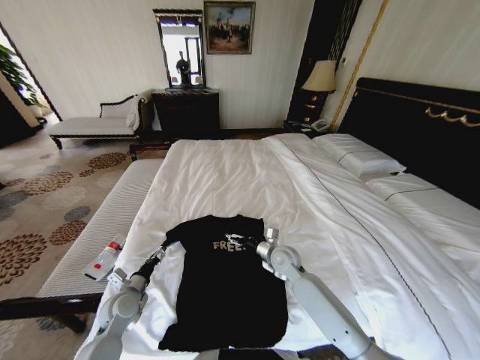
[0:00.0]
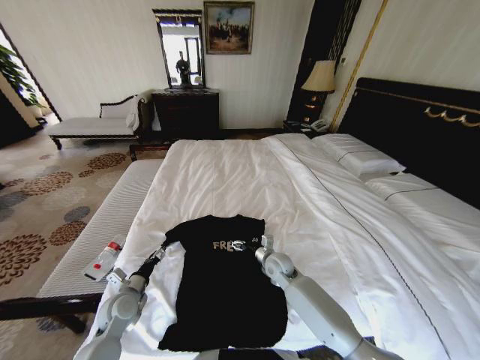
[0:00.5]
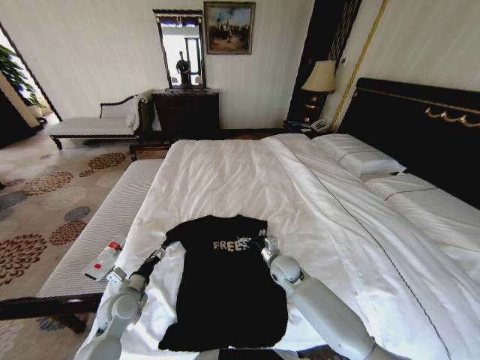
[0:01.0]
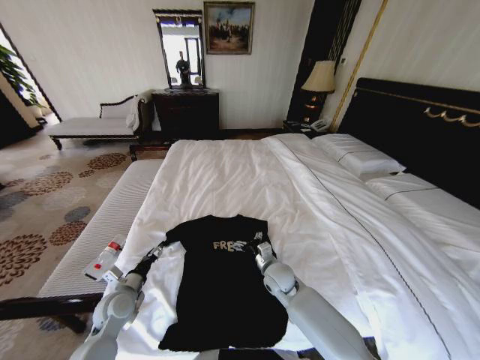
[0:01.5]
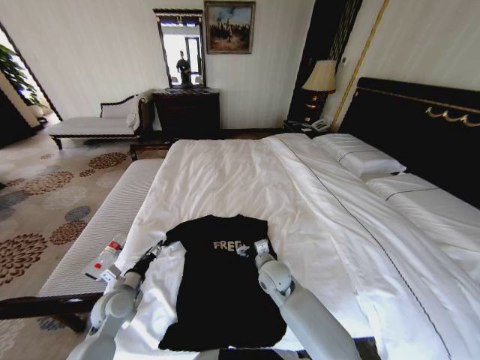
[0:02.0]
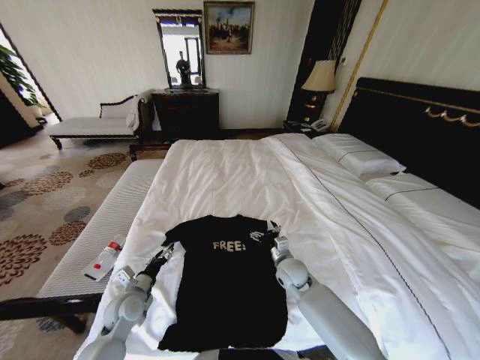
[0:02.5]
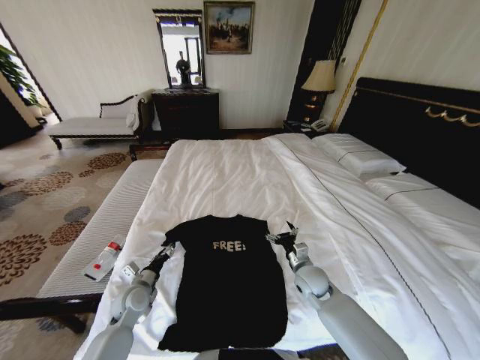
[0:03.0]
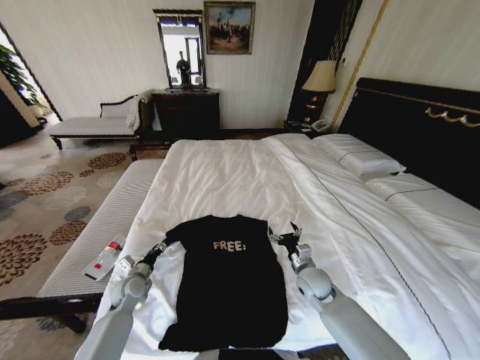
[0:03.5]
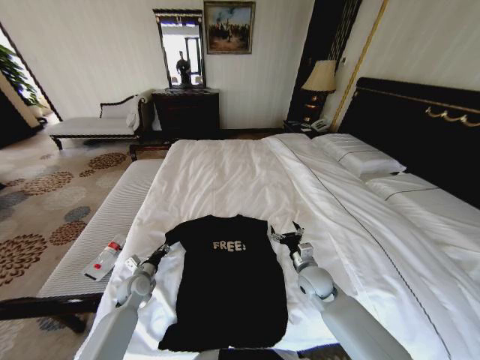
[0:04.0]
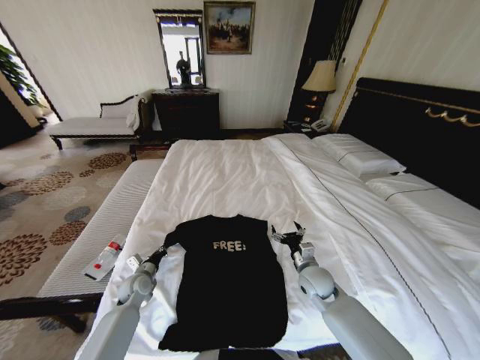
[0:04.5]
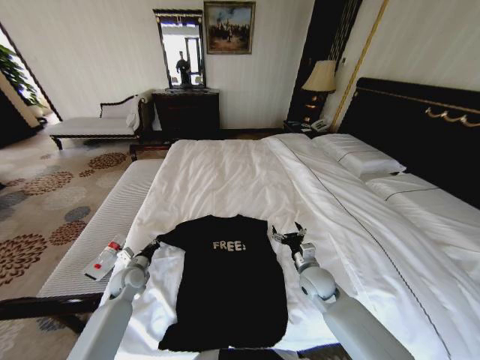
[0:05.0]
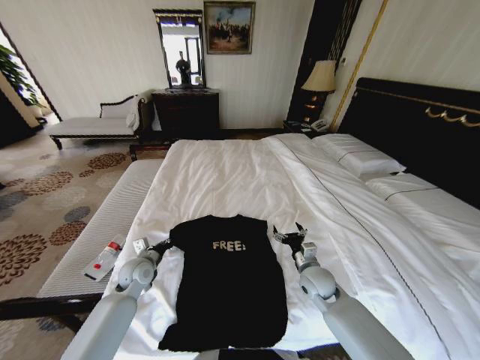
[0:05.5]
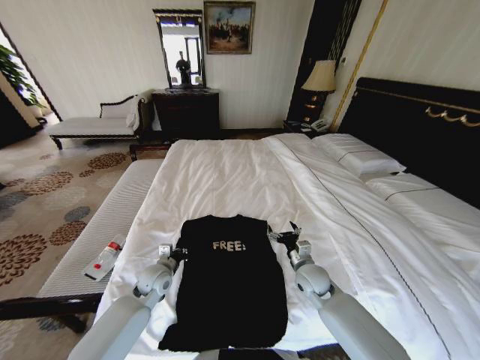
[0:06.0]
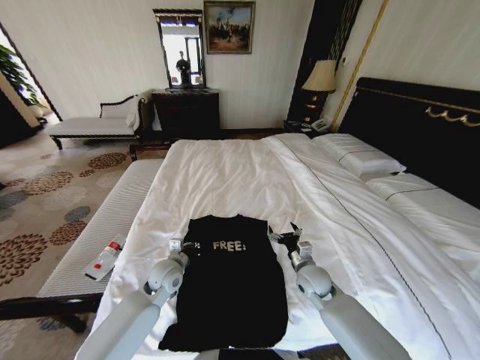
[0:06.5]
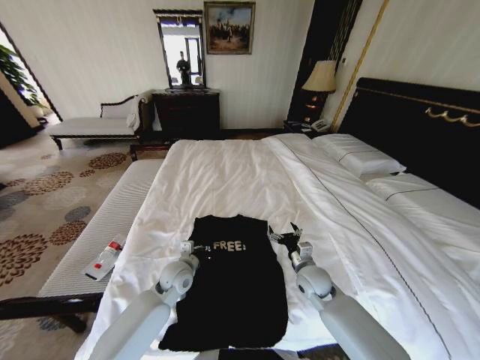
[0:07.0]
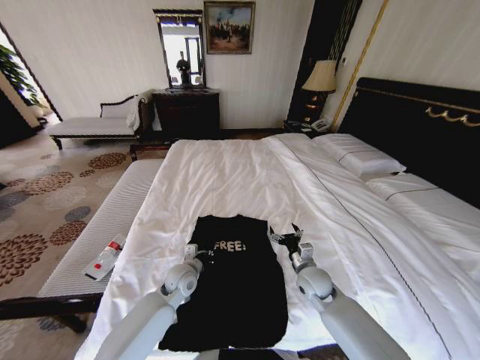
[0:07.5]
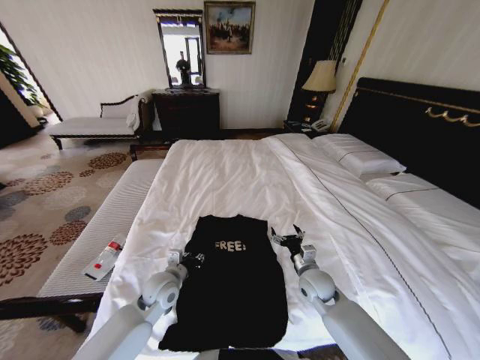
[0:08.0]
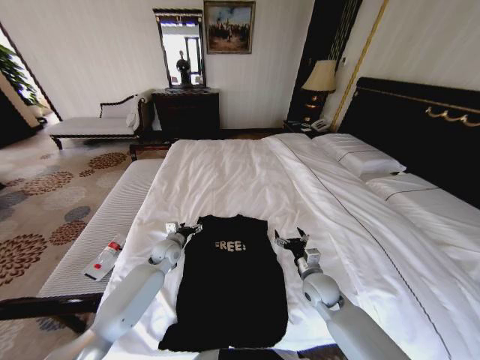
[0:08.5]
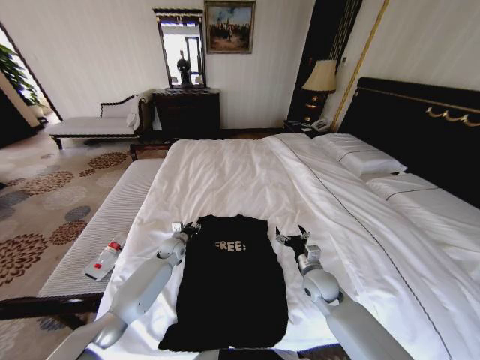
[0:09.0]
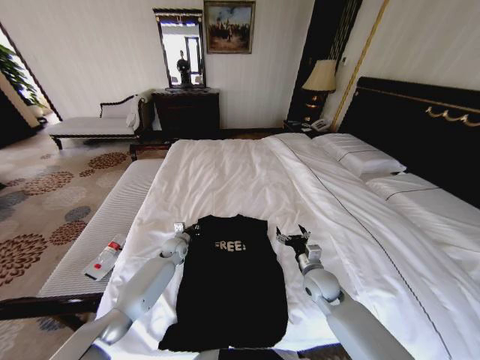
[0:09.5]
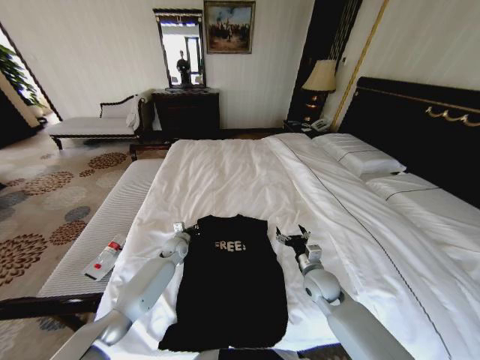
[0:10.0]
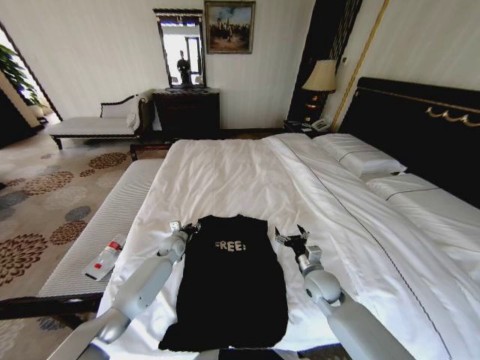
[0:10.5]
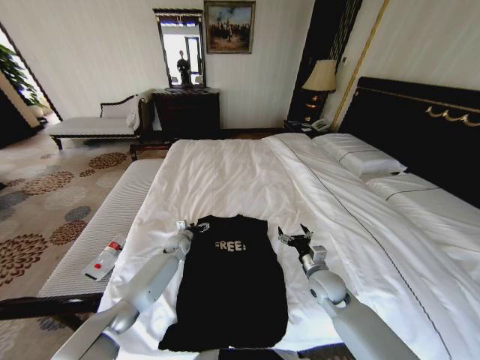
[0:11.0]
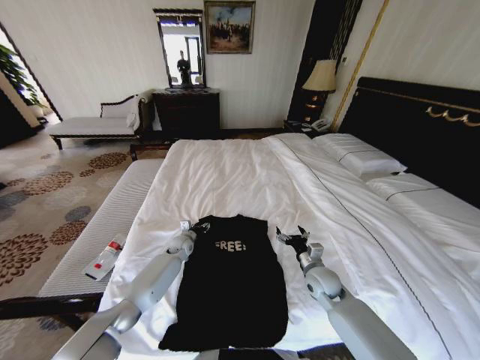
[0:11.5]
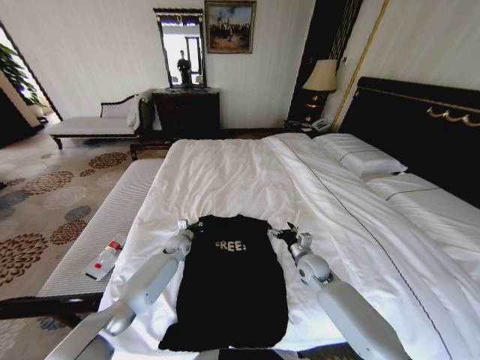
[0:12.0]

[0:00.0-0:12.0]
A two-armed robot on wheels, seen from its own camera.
Task of the whole recording: Fold the clothes on the bed.
0:00.0 to 0:02.0: The right gripper ends up approximately 5 cm from where it was.
0:02.0 to 0:04.0: The left gripper is displaced forward and downward by about 10 cm; the right gripper travels to the right by about 15 cm.
0:04.0 to 0:06.0: The left gripper travels to the right and upward by approximately 10 cm, and closes.
0:06.0 to 0:08.0: The left gripper shifts by some 5 cm.
0:08.0 to 0:10.0: The left gripper goes about 20 cm forward and downward, and opens, then closes again.
0:10.0 to 0:12.0: The right gripper moves forward, about 5 cm. The left gripper opens, then closes once more.

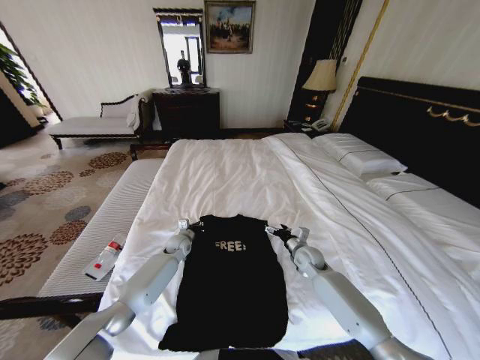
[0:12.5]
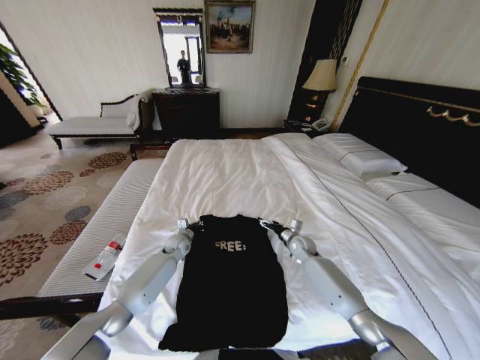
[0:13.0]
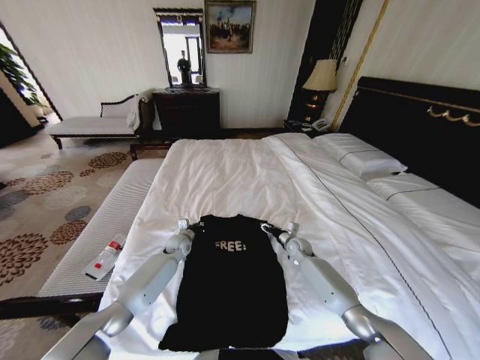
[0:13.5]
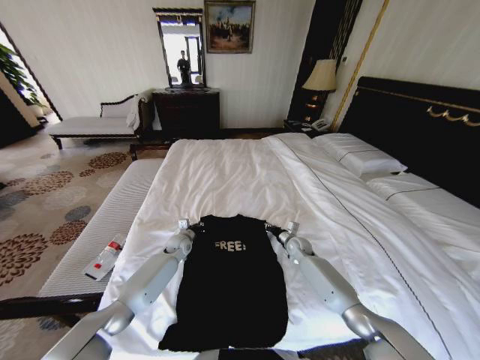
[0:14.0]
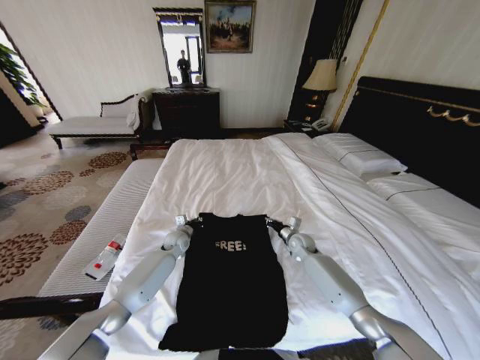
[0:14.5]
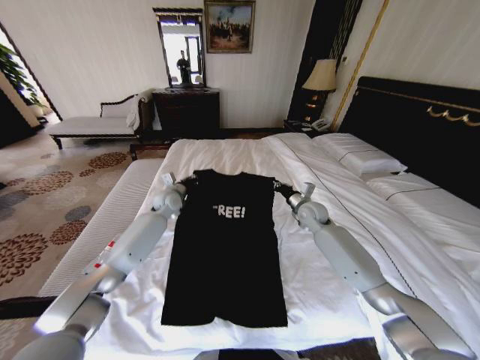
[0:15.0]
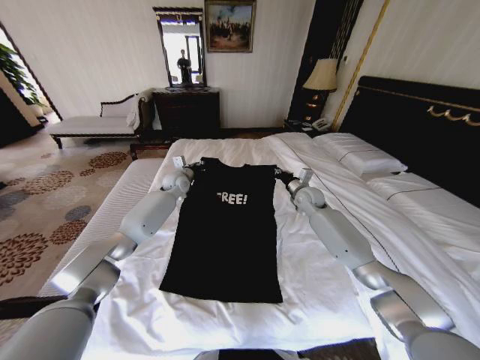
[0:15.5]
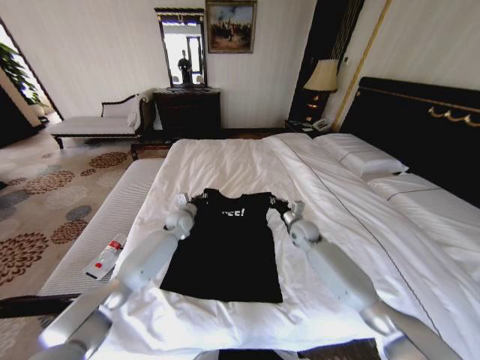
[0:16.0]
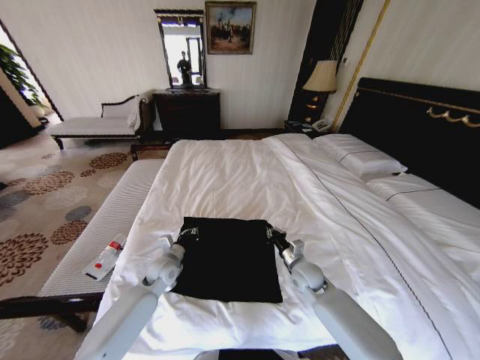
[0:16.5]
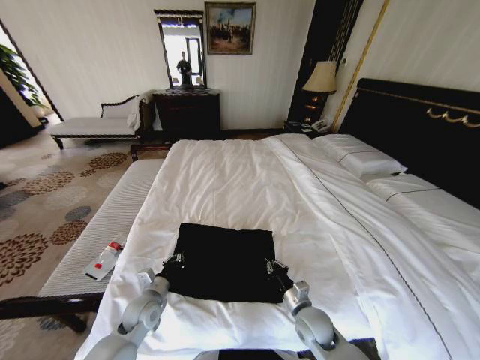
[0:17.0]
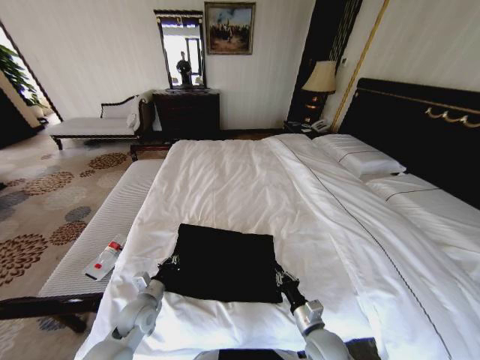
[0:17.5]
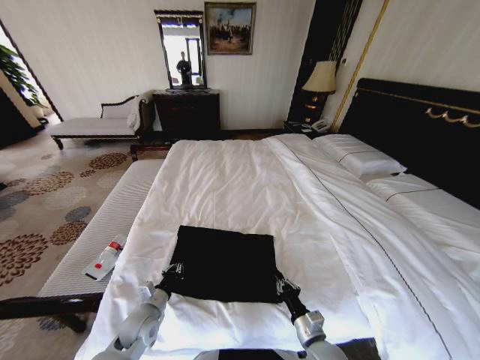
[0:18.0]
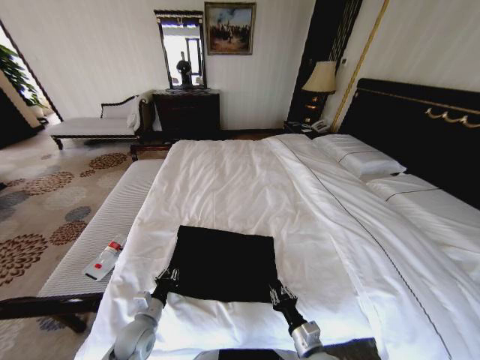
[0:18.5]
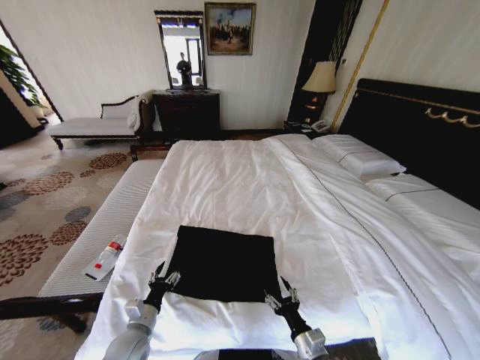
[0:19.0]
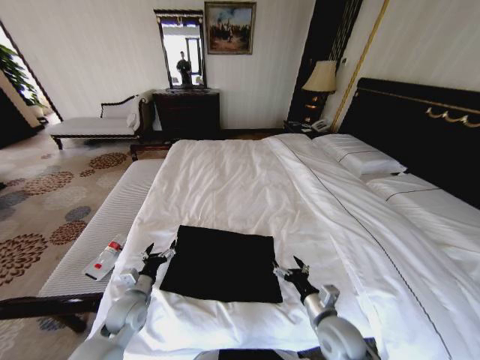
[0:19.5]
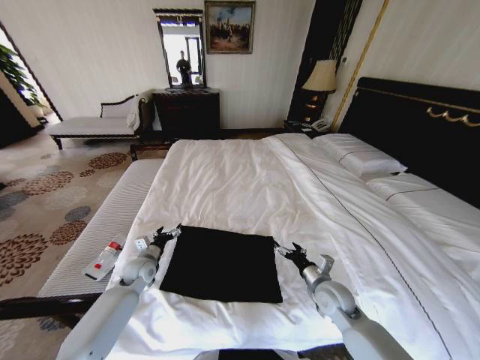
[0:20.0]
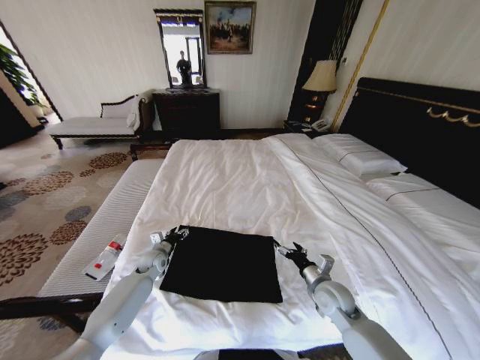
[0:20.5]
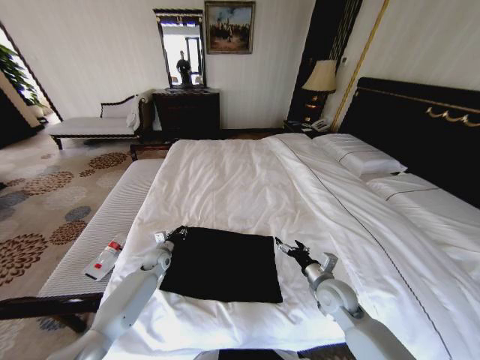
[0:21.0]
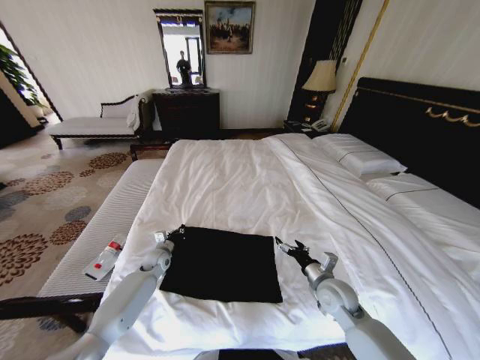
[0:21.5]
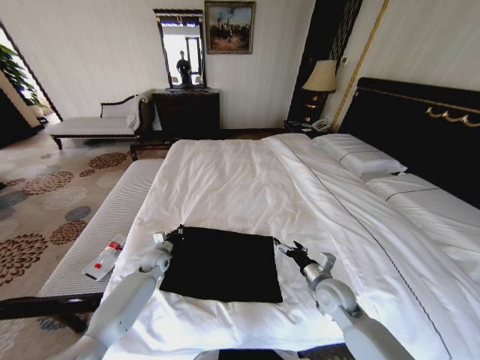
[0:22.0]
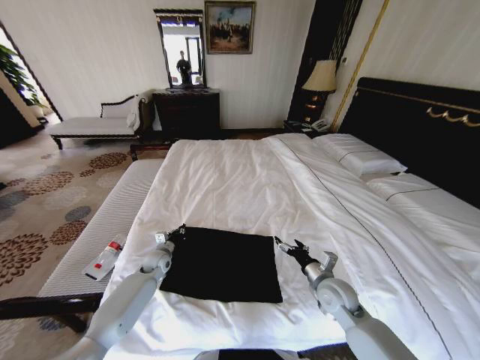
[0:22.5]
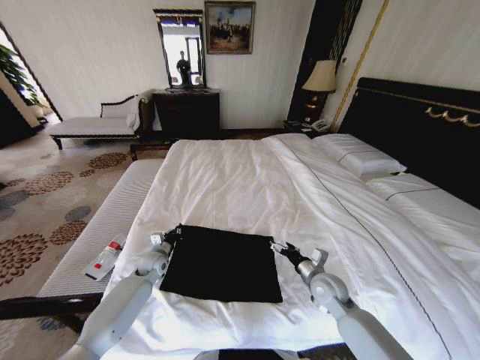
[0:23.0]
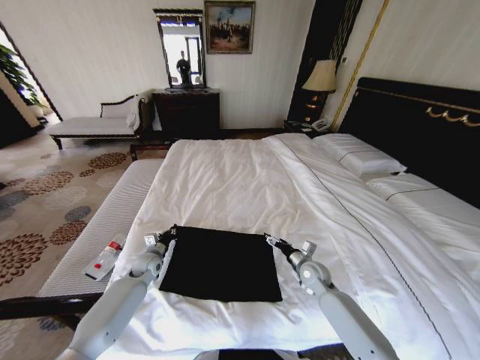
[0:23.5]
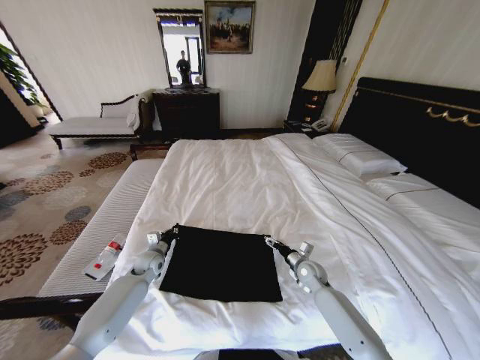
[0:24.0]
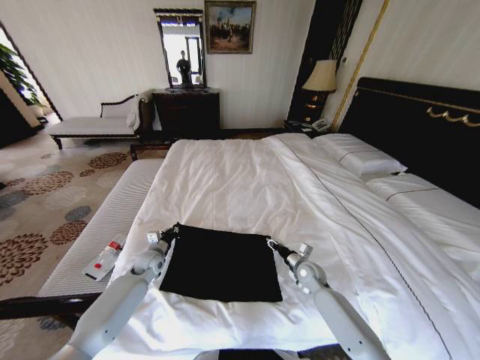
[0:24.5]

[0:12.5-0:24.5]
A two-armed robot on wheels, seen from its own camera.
Task of the whole recording: Fold the clothes on the bed.
0:12.5 to 0:14.5: The right gripper heads forward, covering roughly 5 cm, and closes its fingers.
0:14.5 to 0:16.5: The grippers both shift backward by roughly 10 cm.
0:16.5 to 0:18.5: Both grippers move backward, some 20 cm.
0:18.5 to 0:20.5: The right gripper heads forward, upward and to the right, covering about 20 cm, and opens its fingers, while the left gripper is displaced forward by roughly 20 cm, and opens its fingers.
0:20.5 to 0:22.5: The left gripper closes its fingers.
0:22.5 to 0:24.5: The right gripper shifts about 15 cm forward and downward, and closes its fingers.

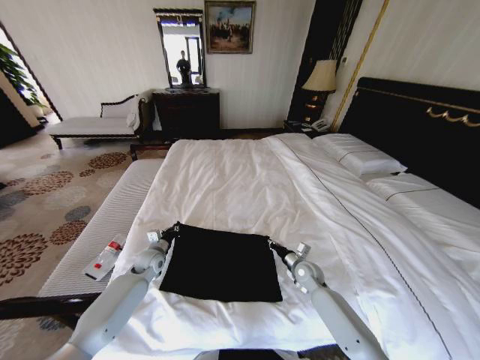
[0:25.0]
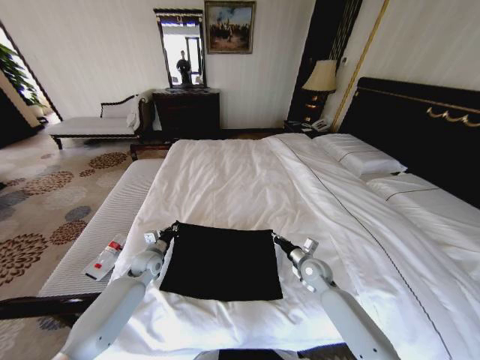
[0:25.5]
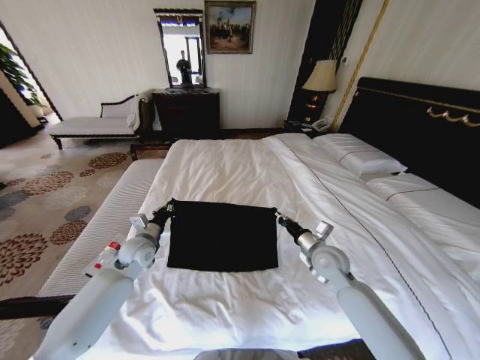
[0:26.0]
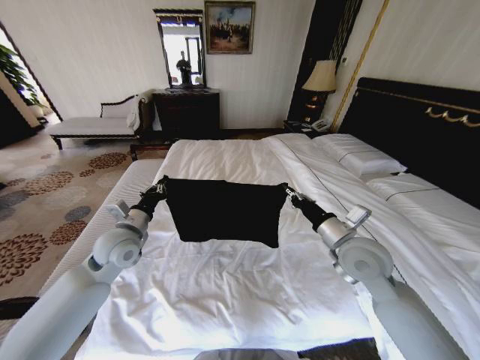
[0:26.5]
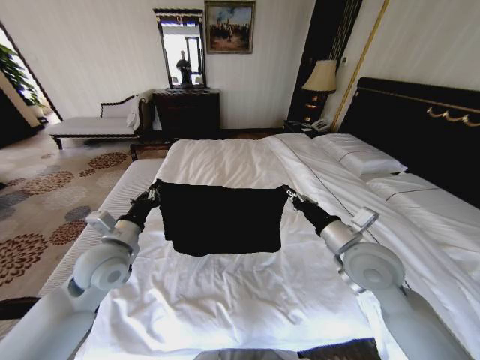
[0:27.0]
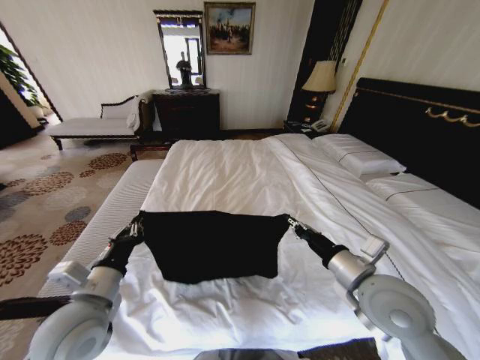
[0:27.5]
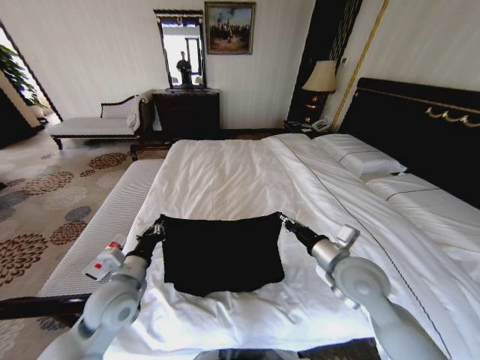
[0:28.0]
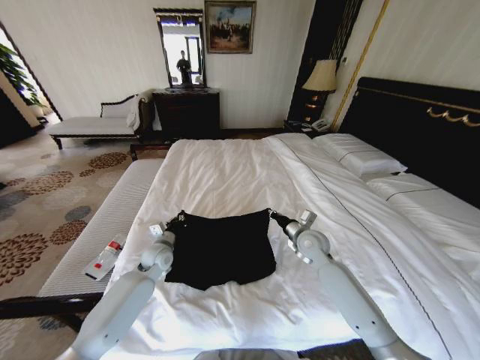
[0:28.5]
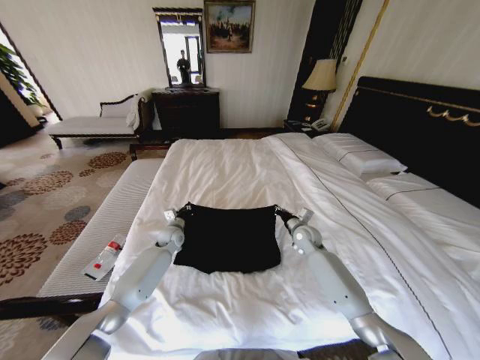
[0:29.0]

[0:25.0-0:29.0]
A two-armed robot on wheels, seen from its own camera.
Task of the whole recording: Fold the clothes on the bed.
0:25.0 to 0:27.0: The left gripper shifts approximately 25 cm upward and backward, while the right gripper is displaced upward by about 30 cm.
0:27.0 to 0:29.0: The two grippers go approximately 25 cm forward and downward.
